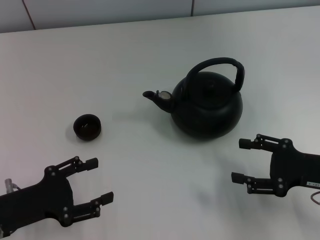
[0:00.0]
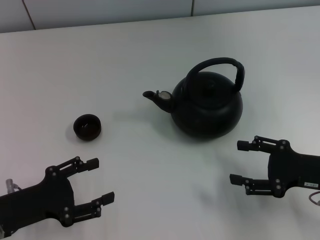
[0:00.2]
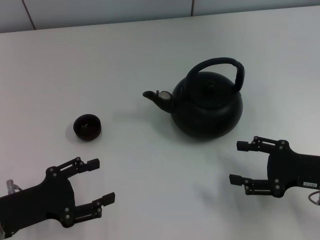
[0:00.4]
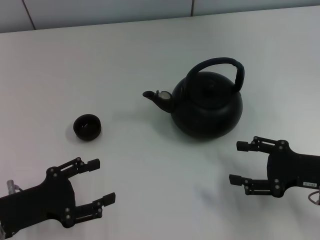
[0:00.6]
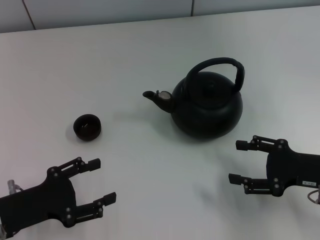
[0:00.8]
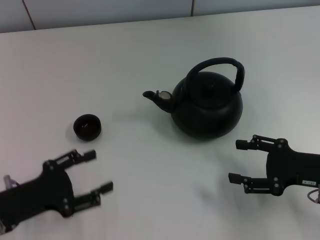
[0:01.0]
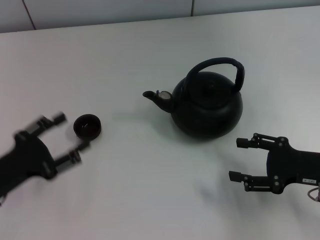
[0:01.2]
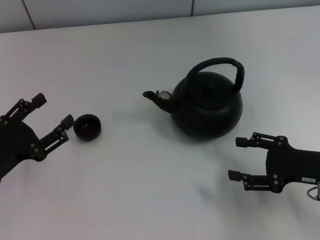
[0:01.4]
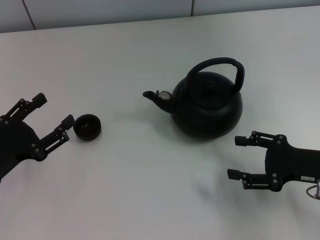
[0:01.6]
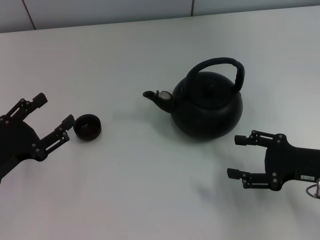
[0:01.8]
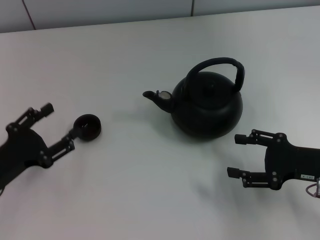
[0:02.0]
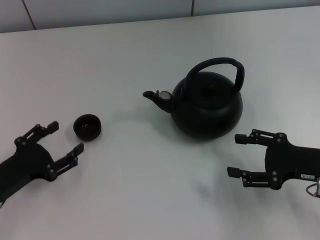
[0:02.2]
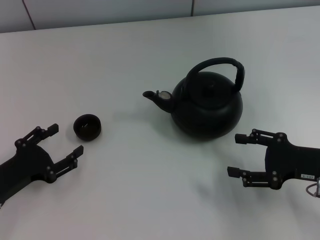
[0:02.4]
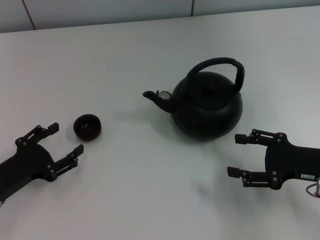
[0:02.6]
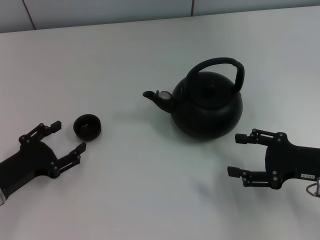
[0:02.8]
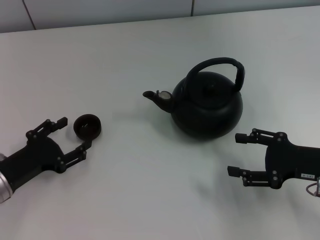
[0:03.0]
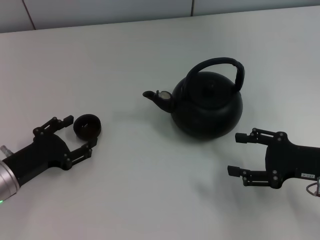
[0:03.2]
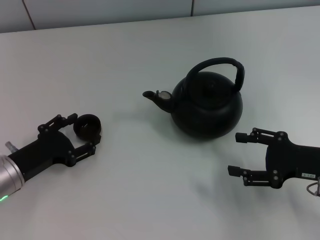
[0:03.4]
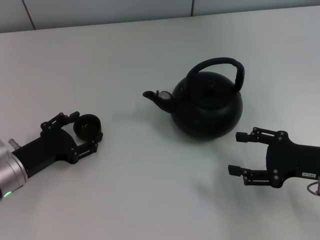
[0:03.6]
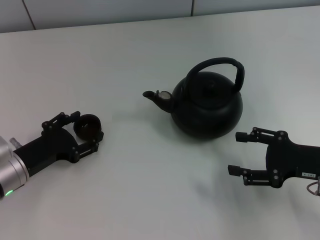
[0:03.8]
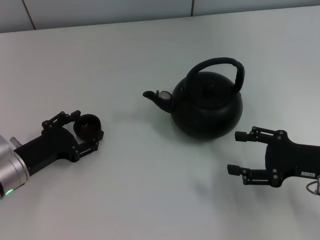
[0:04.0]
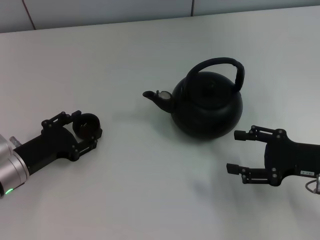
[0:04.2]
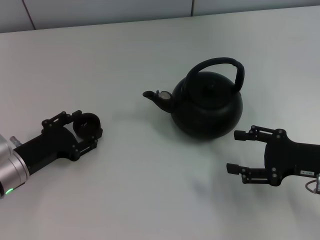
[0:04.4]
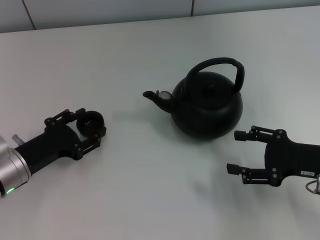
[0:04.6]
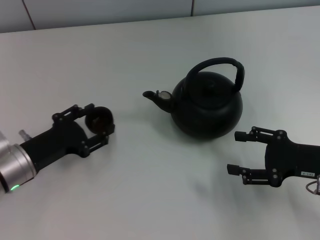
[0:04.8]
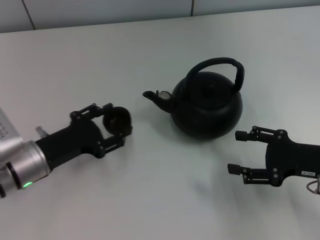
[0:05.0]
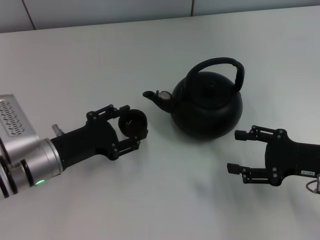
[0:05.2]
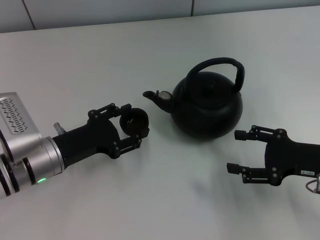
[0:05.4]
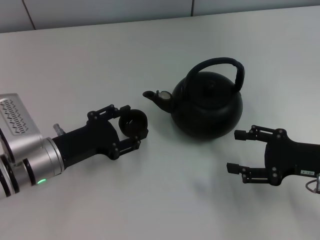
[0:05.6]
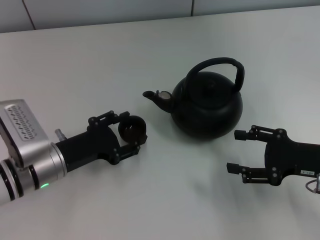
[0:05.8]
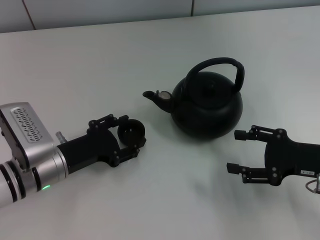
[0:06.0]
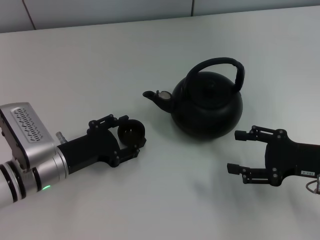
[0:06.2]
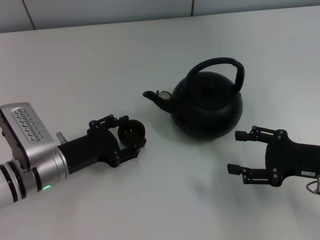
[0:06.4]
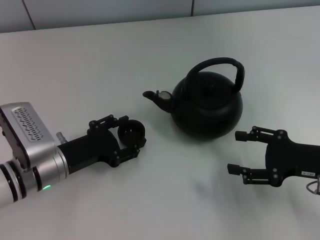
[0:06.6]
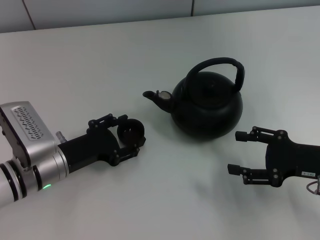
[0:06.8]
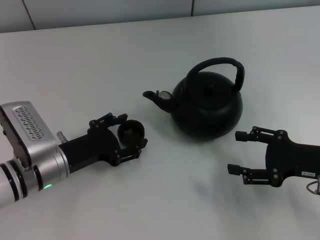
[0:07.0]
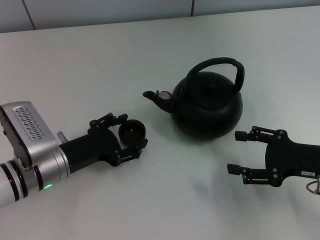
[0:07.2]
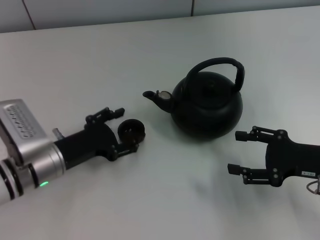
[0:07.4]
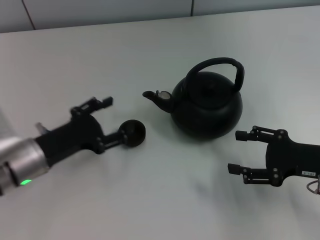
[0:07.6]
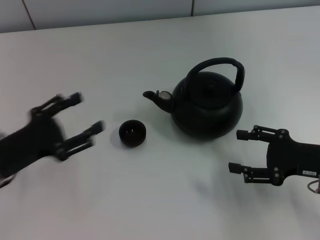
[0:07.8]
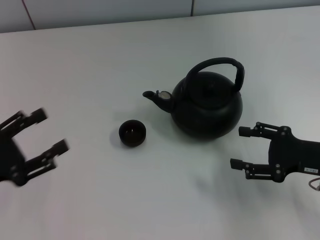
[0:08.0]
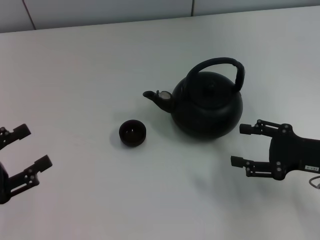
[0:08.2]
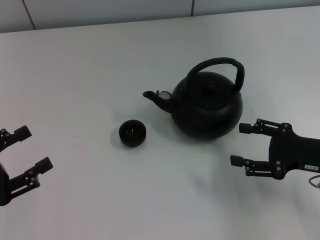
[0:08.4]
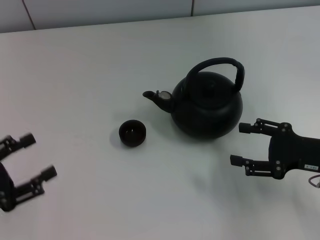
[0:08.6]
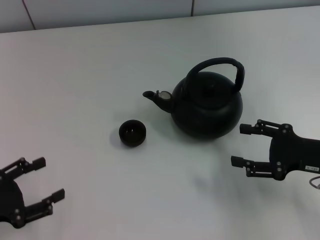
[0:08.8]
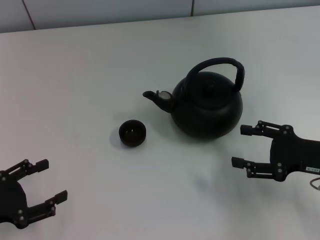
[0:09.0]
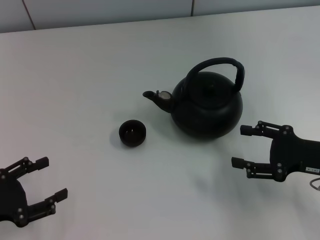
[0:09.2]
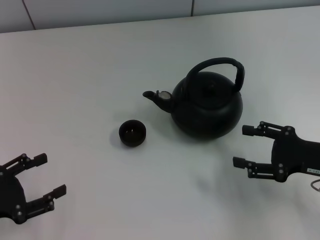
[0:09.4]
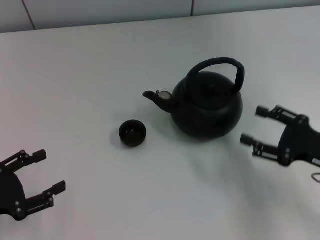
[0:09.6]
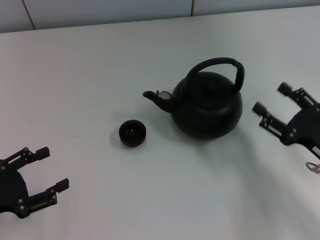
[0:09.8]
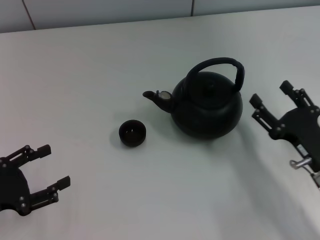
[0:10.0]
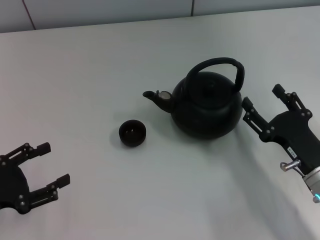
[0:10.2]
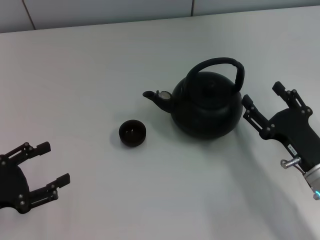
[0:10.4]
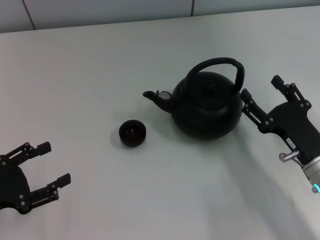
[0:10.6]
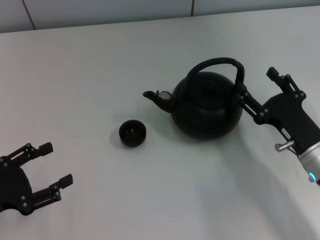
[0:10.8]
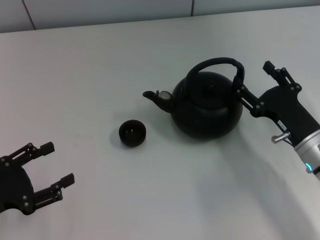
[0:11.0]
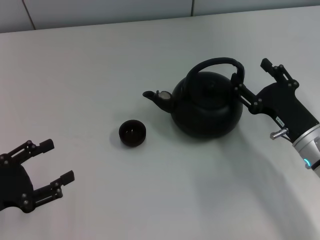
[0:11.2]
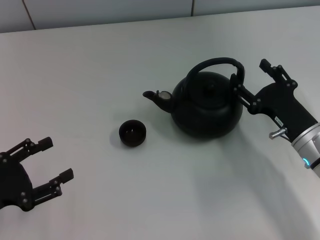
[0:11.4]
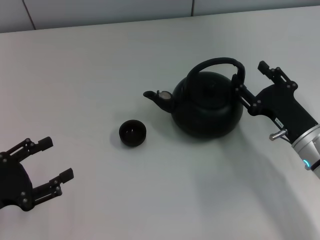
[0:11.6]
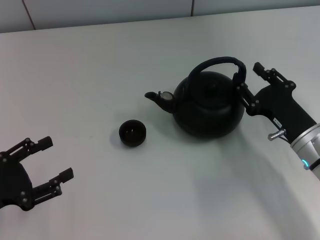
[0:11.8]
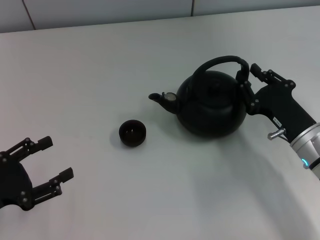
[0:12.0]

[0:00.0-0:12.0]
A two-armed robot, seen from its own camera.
Task of the whole recording: Grasp the handle of the teapot with one hand and pour tea into the teacup.
Step, 0:00.0 to 0:04.6: Pick up the teacup with the left gripper.
Step, 0:04.8 to 0:07.6: Place the teacup in the center of view with the left gripper.
0:01.6 to 0:03.0: The grippers move only a little.
0:03.0 to 0:04.4: The left gripper closes.
0:04.4 to 0:06.0: The left gripper goes about 5 cm to the right.
0:06.0 to 0:07.6: The left gripper opens.
0:07.6 to 0:09.0: The left gripper is displaced to the left and backward by approximately 15 cm.
0:09.0 to 0:10.4: The right gripper shifts about 5 cm to the left.
0:10.4 to 0:12.0: The right gripper travels forward by approximately 5 cm, and closes up.

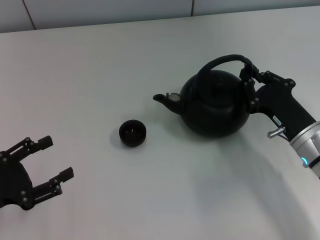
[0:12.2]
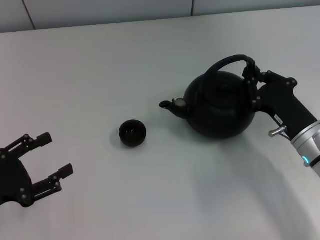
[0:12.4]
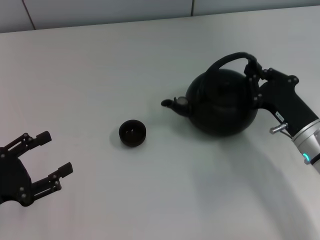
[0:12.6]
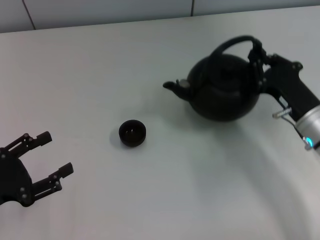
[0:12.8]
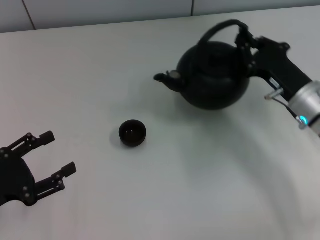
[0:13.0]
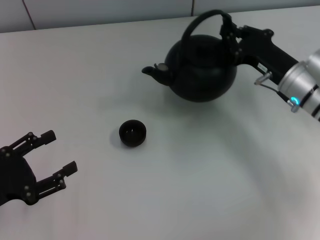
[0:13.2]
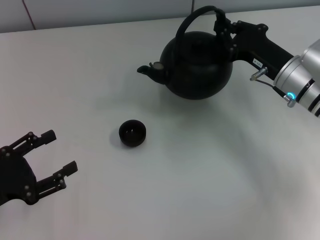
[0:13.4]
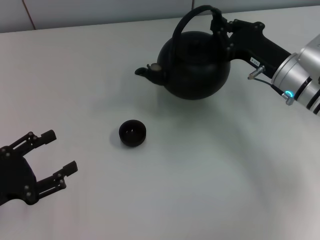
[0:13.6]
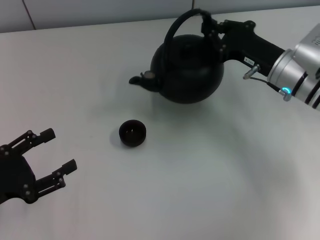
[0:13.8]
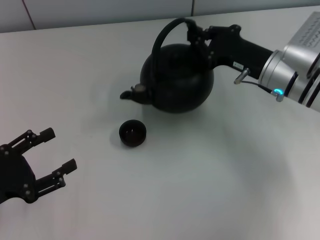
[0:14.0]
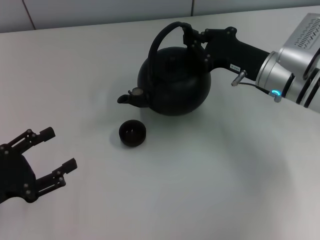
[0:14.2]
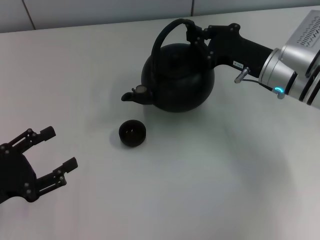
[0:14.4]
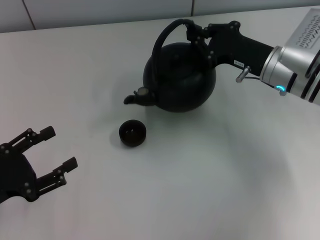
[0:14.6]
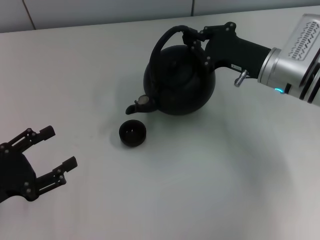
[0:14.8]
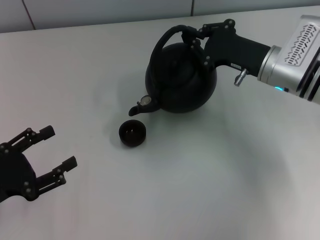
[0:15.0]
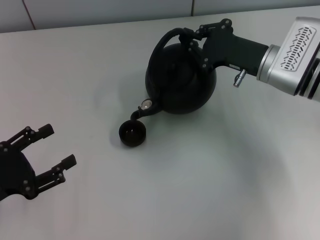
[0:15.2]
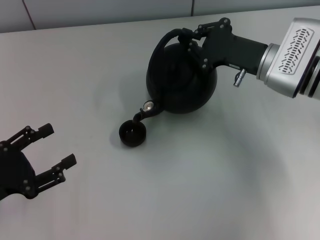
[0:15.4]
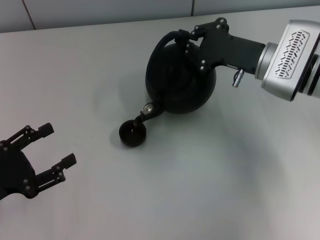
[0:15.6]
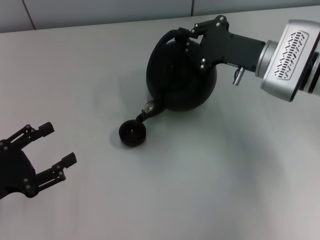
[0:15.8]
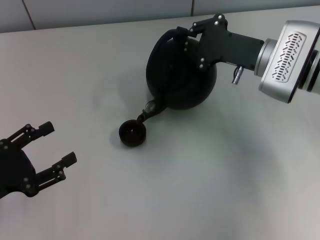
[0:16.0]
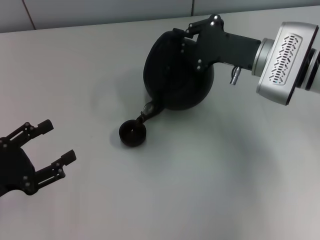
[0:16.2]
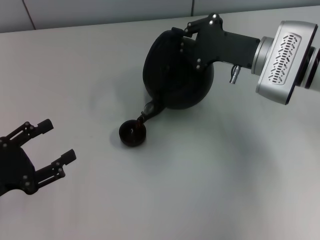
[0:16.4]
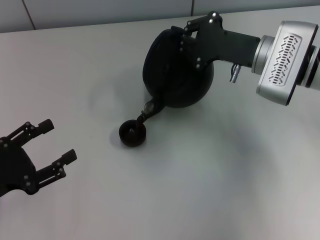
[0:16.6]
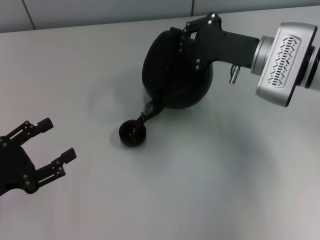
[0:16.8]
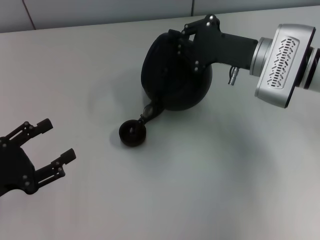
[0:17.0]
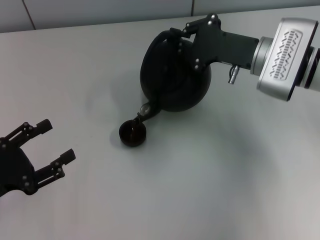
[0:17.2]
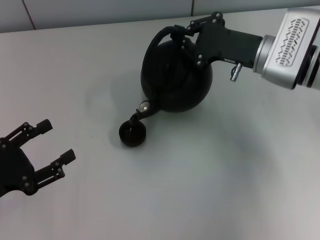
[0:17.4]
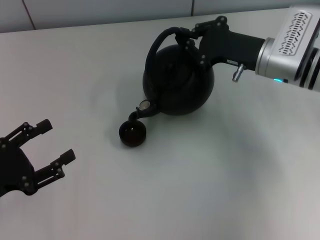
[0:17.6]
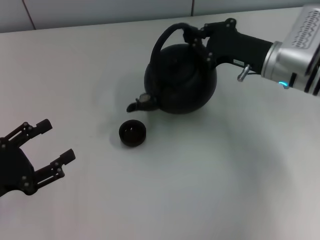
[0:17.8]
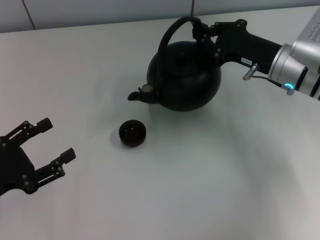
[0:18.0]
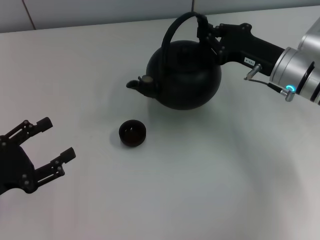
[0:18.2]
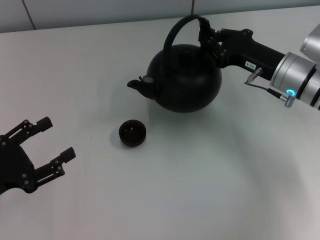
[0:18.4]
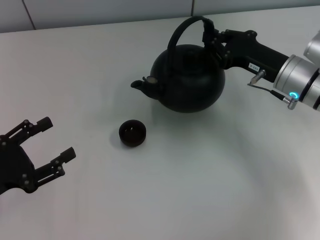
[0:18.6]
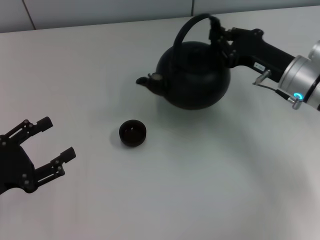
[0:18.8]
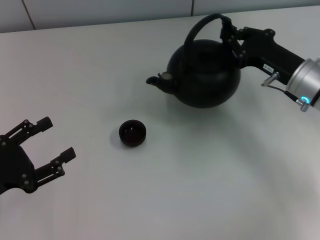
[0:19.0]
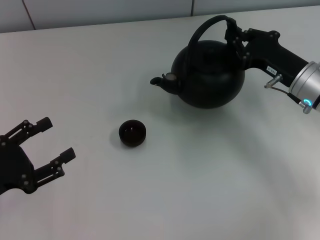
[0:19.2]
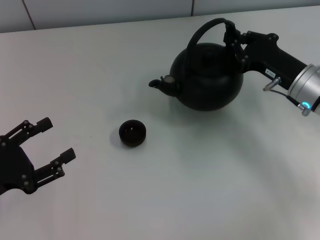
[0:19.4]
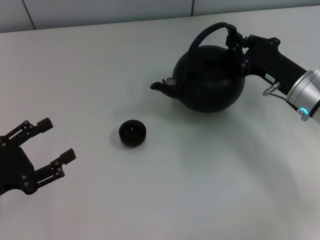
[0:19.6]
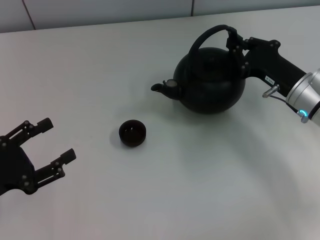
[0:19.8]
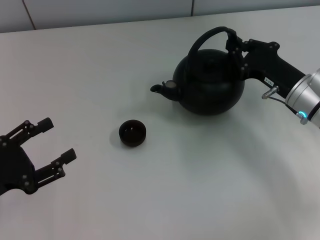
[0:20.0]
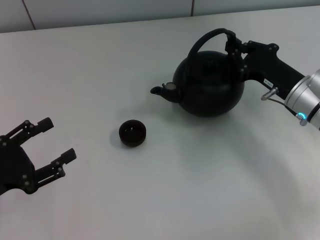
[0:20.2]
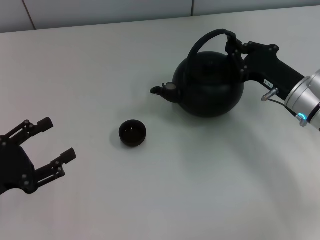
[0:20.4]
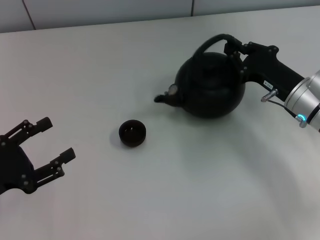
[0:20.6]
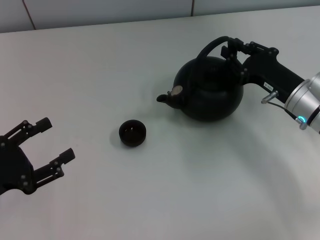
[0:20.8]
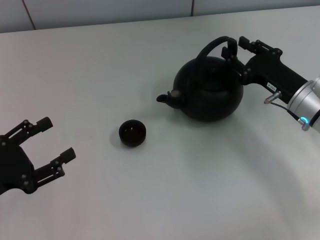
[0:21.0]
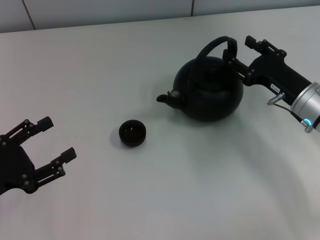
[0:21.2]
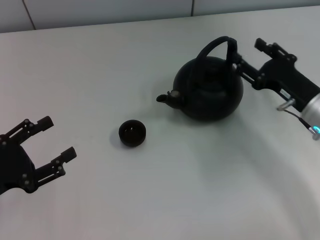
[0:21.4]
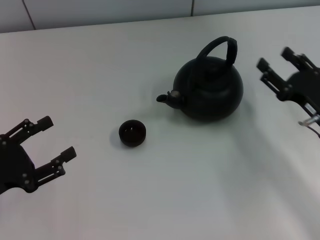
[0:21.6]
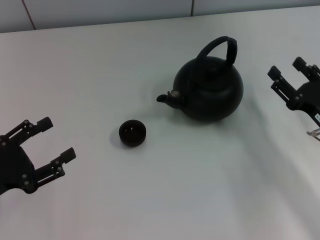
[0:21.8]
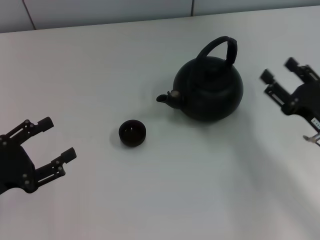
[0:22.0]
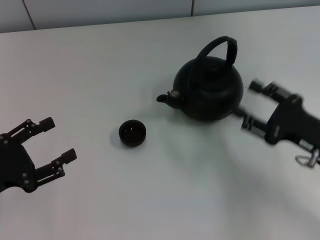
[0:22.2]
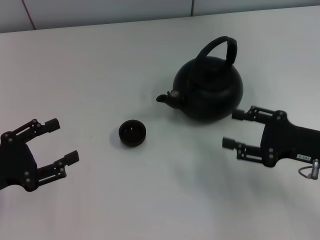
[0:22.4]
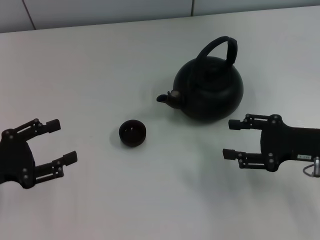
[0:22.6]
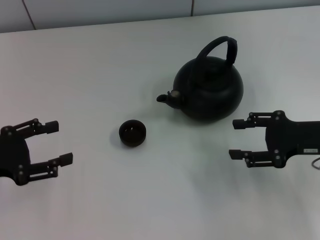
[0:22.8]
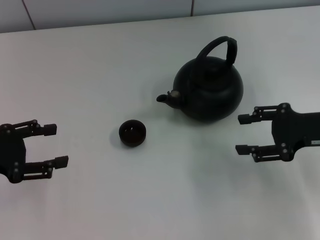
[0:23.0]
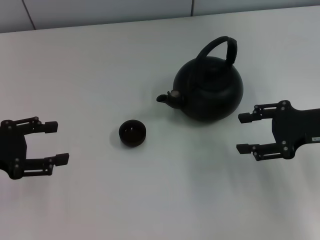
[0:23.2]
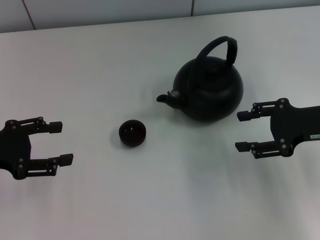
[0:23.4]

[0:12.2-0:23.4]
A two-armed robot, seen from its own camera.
Task of the whole recording: Grasp the handle of the teapot with one hand and pour tea into the teacup.
Step, 0:19.0 to 0:21.4: Put down the teapot with the right gripper.
0:12.2 to 0:13.8: The right gripper heads forward and upward, covering some 10 cm.
0:15.4 to 0:17.0: The grippers move only a little.
0:17.0 to 0:18.6: The right gripper ends up about 5 cm from where it was.
0:18.6 to 0:20.2: There are only small adjustments of the grippers.
0:20.2 to 0:21.8: The right gripper heads backward, covering about 10 cm, and opens.
0:21.8 to 0:23.4: The right gripper travels upward by approximately 10 cm, while the left gripper heads forward and upward, covering approximately 10 cm.
